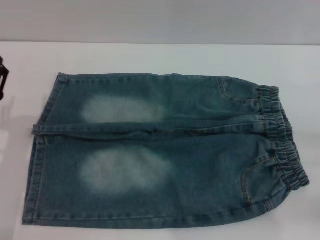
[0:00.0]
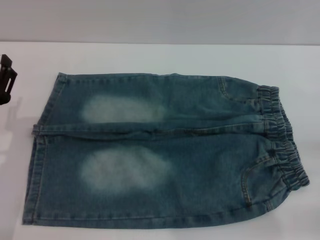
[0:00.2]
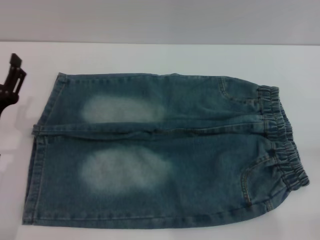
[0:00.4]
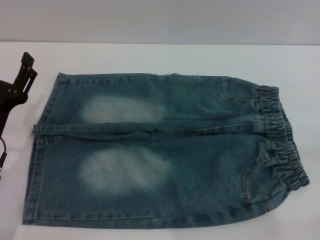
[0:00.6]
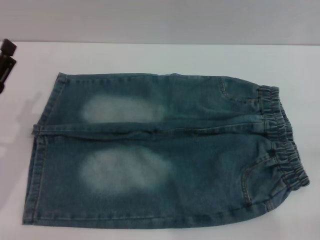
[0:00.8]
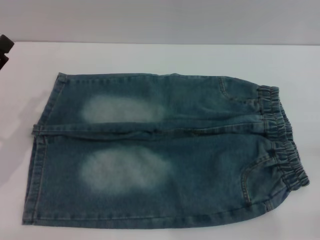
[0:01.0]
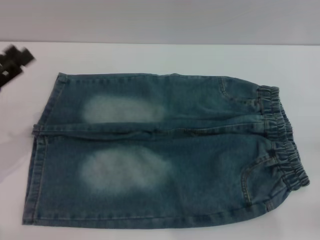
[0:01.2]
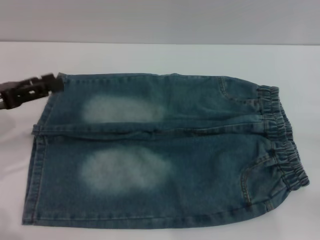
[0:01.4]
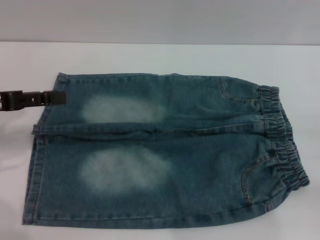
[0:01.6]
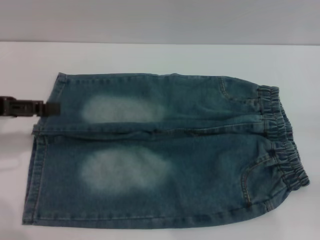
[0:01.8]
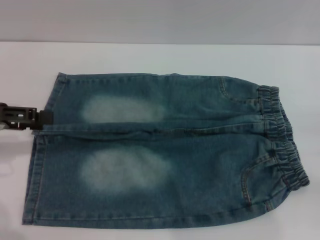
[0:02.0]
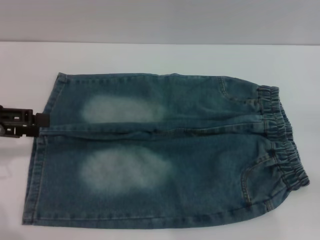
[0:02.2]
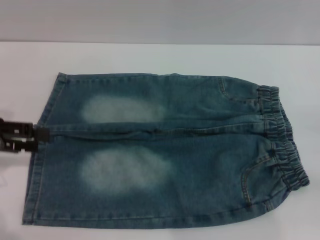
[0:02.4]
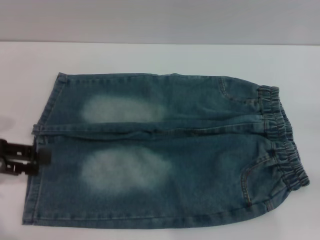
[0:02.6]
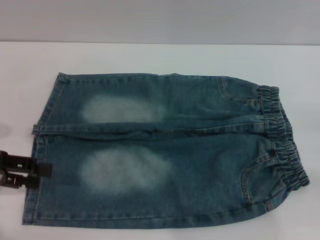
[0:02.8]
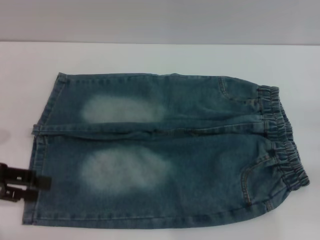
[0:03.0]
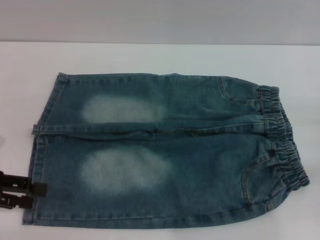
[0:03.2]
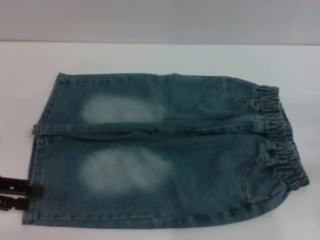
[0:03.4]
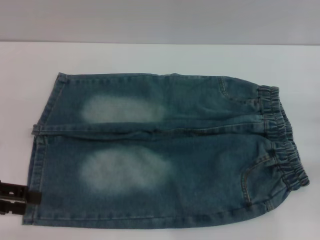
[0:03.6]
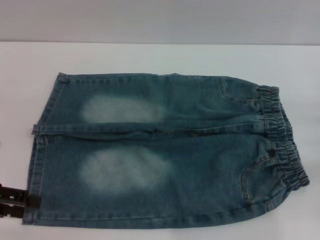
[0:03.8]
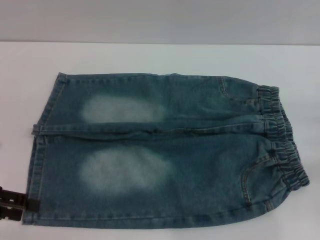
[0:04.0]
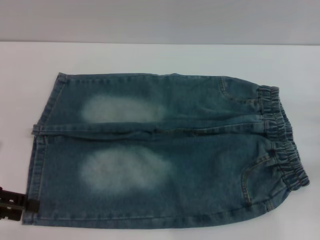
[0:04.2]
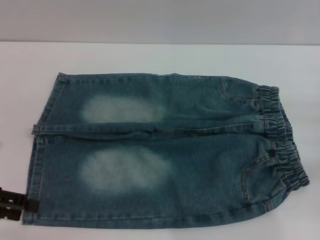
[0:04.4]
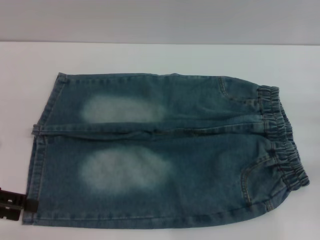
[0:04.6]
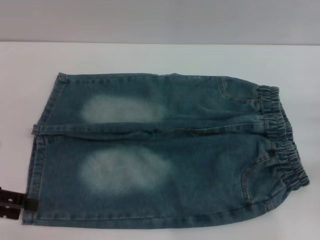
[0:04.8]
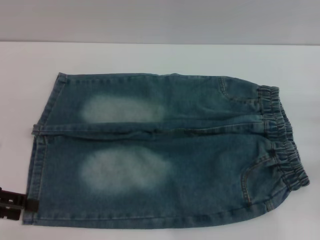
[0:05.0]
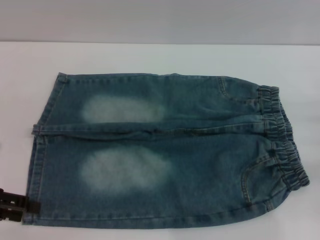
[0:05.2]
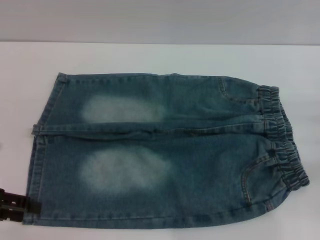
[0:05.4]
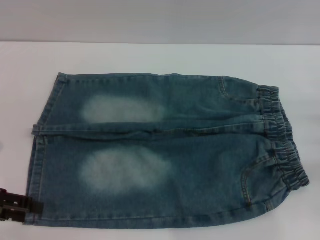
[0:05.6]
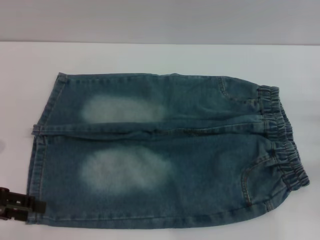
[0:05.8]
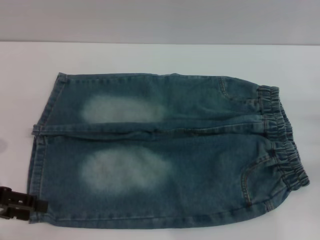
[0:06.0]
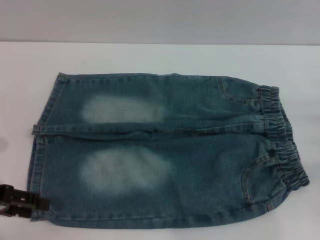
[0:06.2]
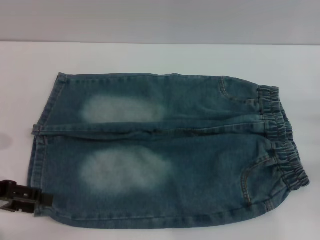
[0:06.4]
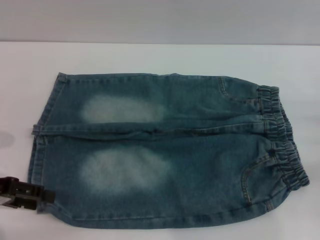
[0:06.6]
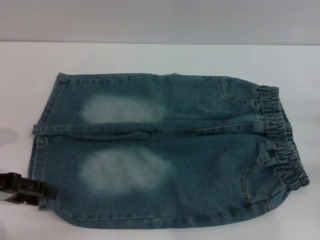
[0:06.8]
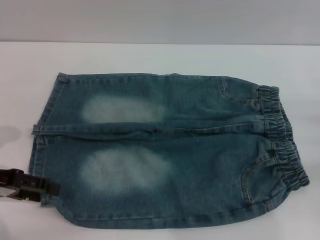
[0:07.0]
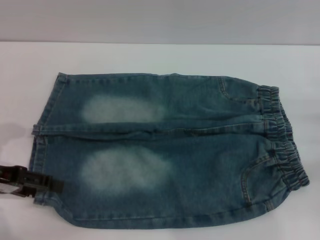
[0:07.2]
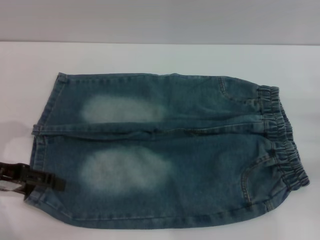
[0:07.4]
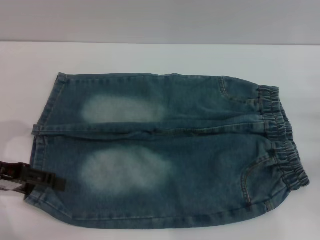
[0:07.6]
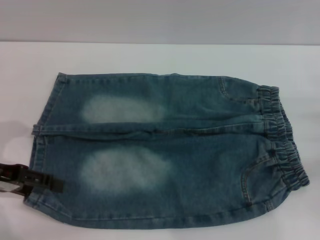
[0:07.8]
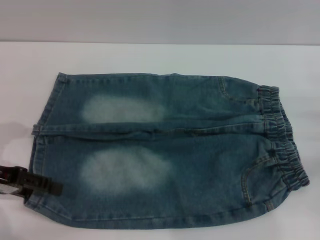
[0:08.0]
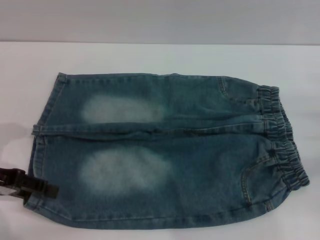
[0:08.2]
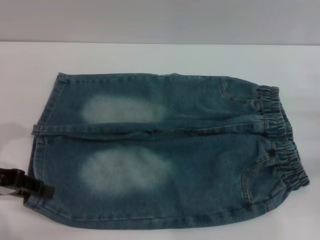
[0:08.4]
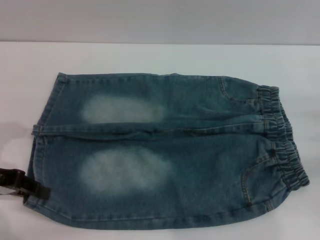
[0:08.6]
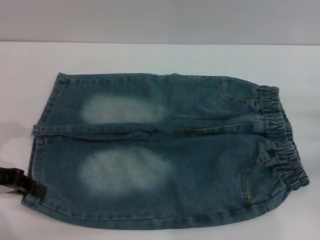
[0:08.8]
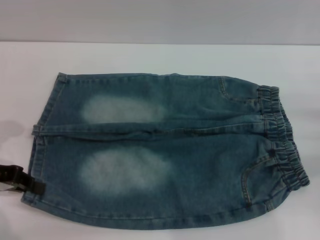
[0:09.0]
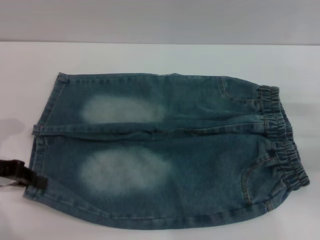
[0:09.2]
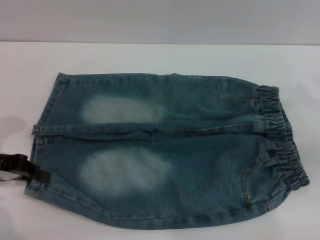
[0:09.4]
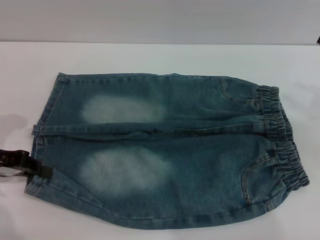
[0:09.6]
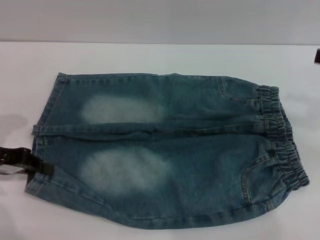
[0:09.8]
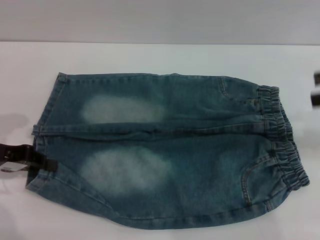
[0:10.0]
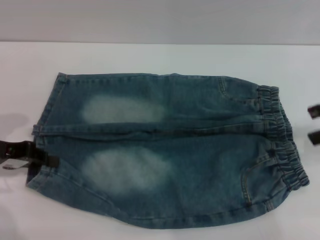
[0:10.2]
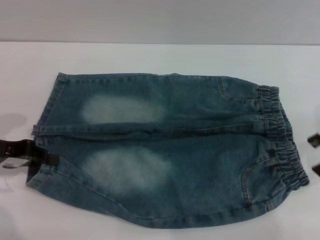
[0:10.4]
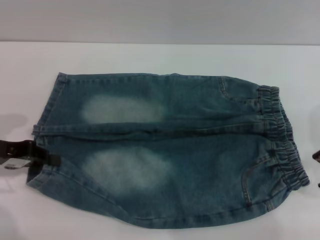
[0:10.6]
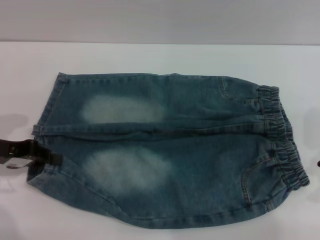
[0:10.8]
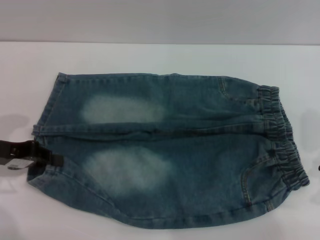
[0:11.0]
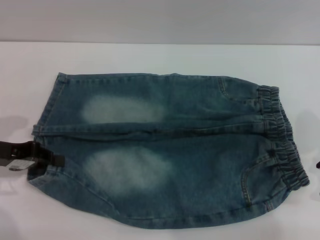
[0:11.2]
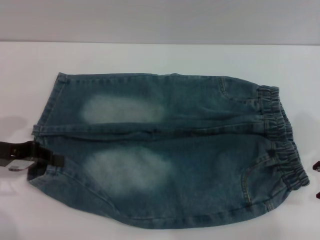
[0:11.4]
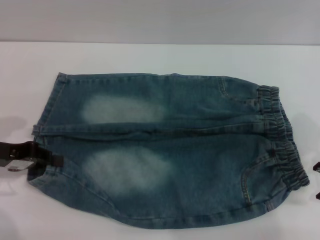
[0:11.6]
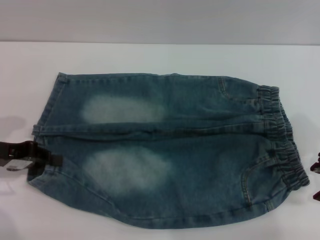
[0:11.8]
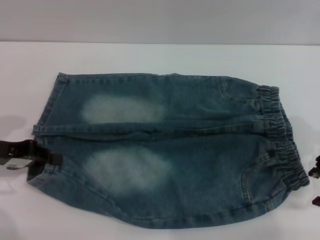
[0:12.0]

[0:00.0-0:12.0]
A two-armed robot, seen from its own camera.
Step, 0:00.0 to 0:09.0: Grasp the lower left leg of the shorts with left gripper.
0:00.0 to 0:01.6: The left gripper heads upward, to the left and forward, covering roughly 15 cm.
0:01.6 to 0:03.0: The left gripper ends up roughly 5 cm from where it was.
0:03.0 to 0:04.4: The grippers make only small movements.
0:04.4 to 0:06.0: The two grippers keep their place.
0:06.0 to 0:07.6: The grippers make only small movements.
0:07.6 to 0:09.0: The left gripper closes its fingers.
0:09.0 to 0:10.4: The right gripper shifts about 15 cm upward.
0:10.4 to 0:12.0: The right gripper is displaced downward by roughly 5 cm.

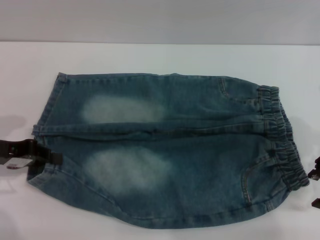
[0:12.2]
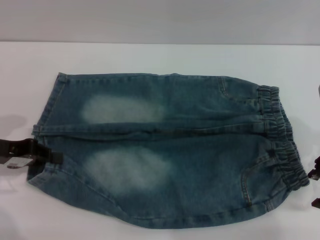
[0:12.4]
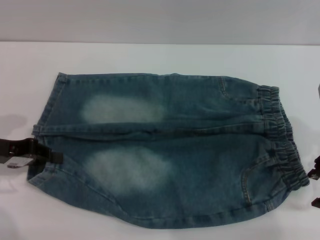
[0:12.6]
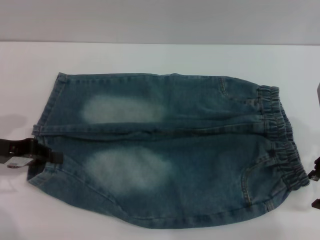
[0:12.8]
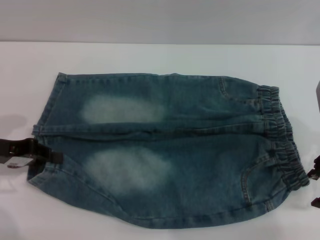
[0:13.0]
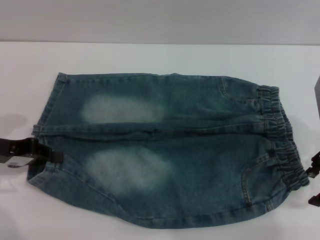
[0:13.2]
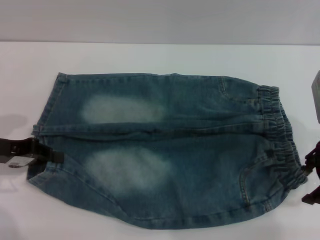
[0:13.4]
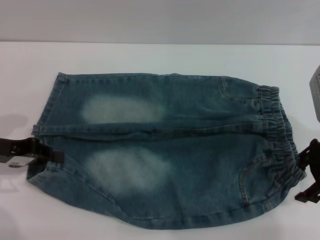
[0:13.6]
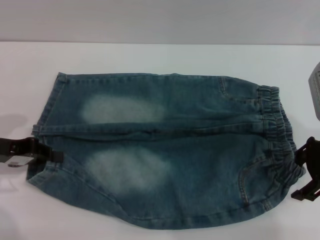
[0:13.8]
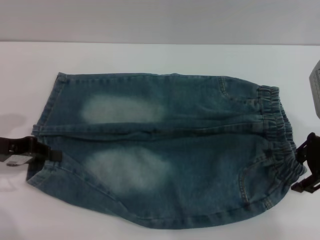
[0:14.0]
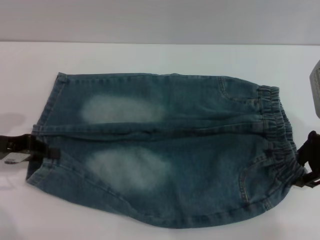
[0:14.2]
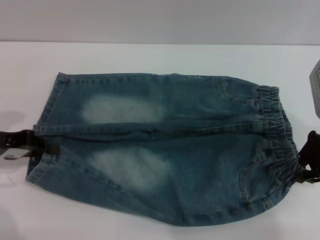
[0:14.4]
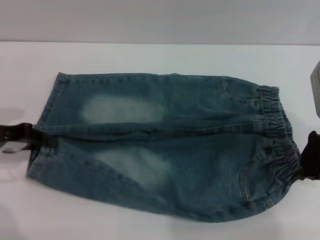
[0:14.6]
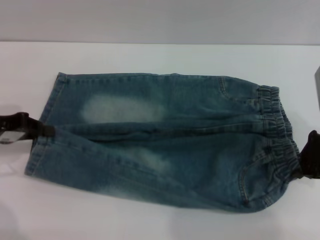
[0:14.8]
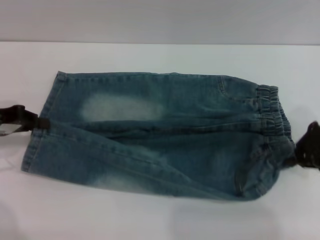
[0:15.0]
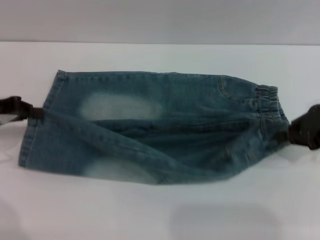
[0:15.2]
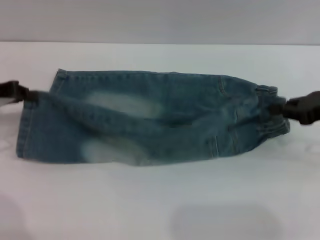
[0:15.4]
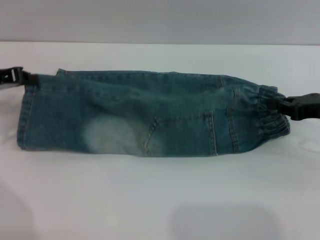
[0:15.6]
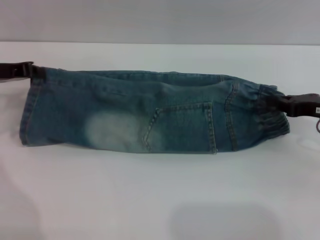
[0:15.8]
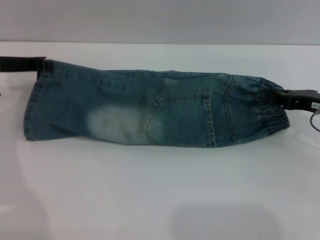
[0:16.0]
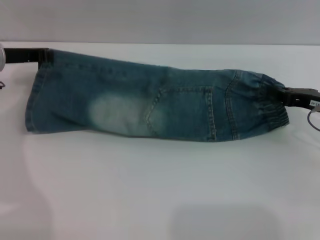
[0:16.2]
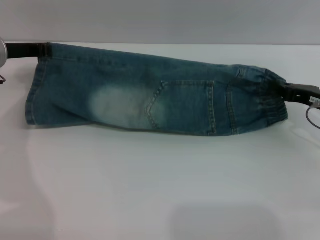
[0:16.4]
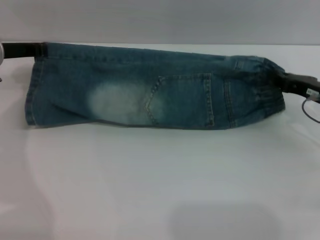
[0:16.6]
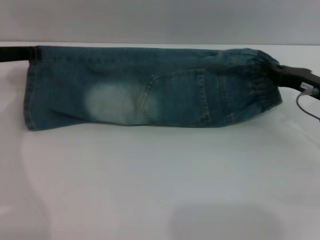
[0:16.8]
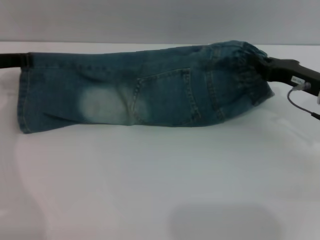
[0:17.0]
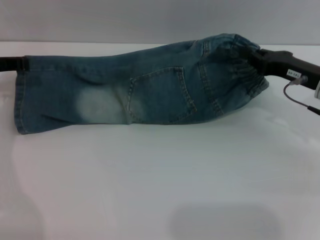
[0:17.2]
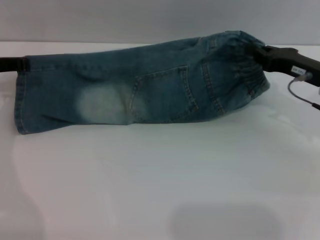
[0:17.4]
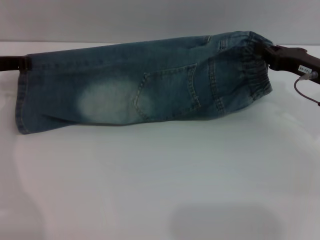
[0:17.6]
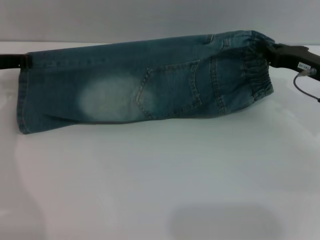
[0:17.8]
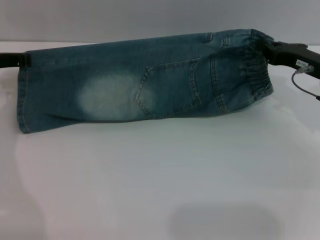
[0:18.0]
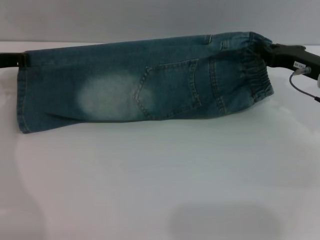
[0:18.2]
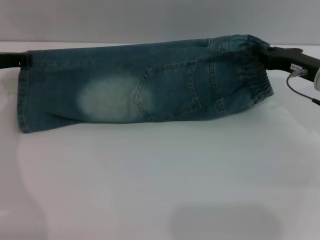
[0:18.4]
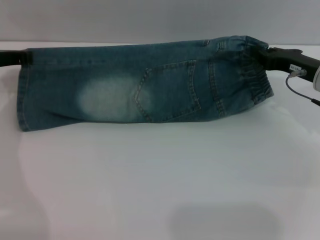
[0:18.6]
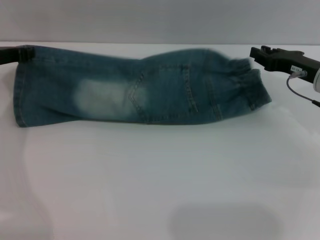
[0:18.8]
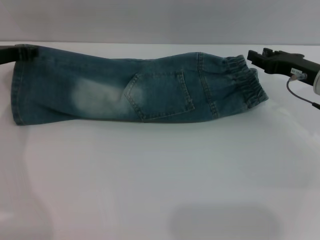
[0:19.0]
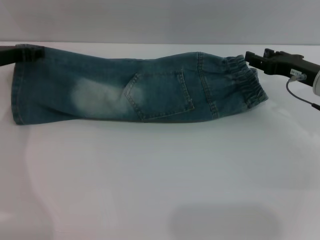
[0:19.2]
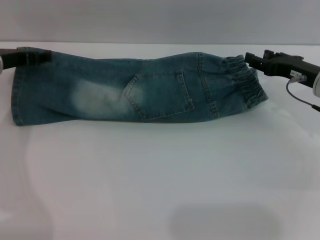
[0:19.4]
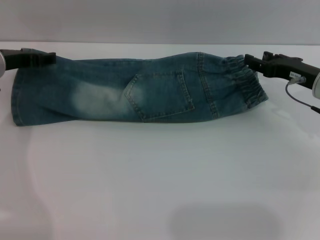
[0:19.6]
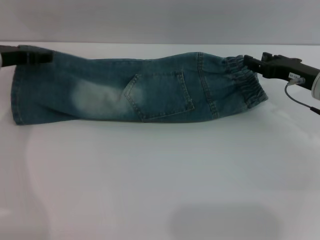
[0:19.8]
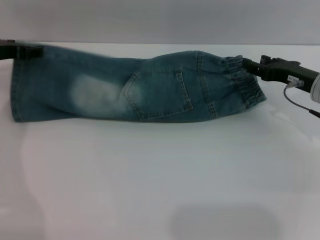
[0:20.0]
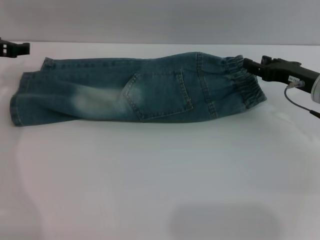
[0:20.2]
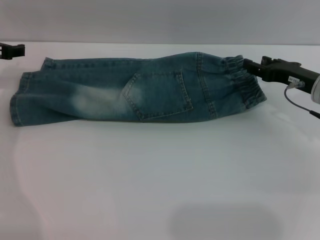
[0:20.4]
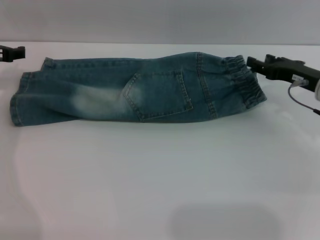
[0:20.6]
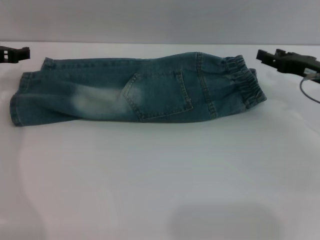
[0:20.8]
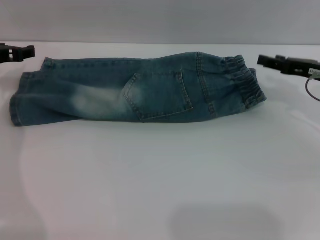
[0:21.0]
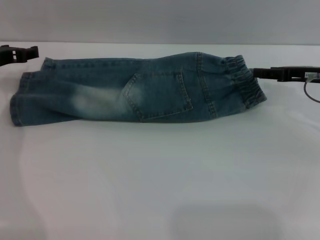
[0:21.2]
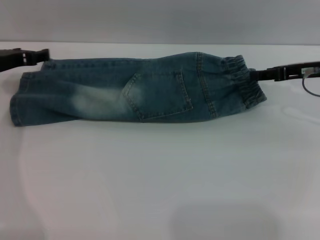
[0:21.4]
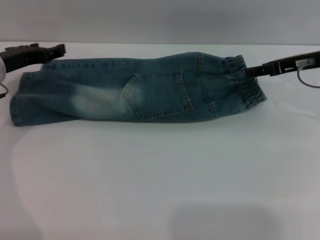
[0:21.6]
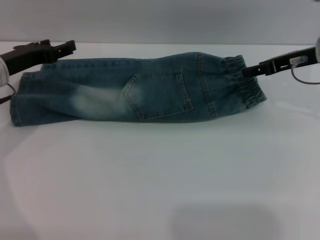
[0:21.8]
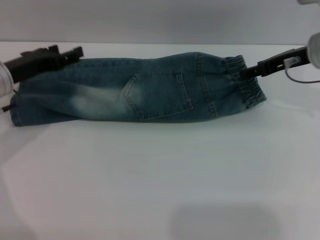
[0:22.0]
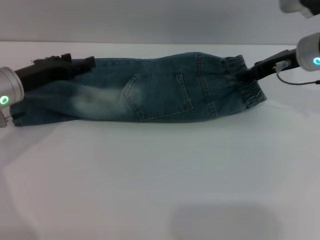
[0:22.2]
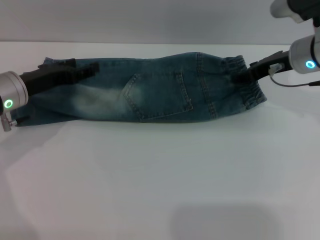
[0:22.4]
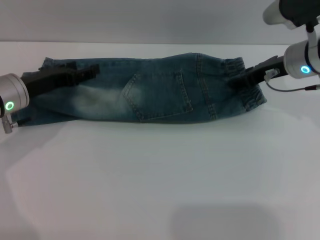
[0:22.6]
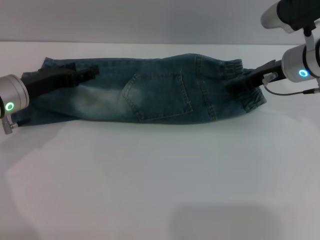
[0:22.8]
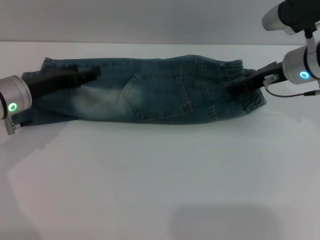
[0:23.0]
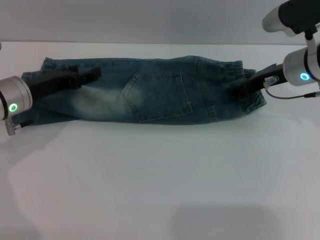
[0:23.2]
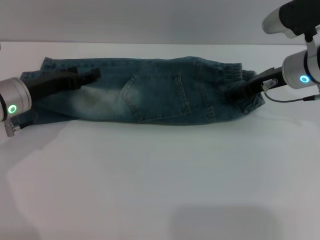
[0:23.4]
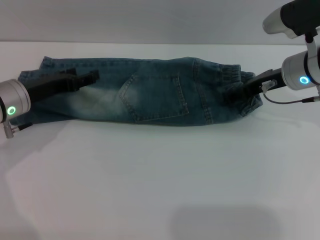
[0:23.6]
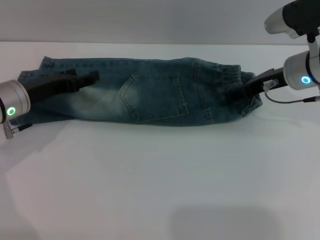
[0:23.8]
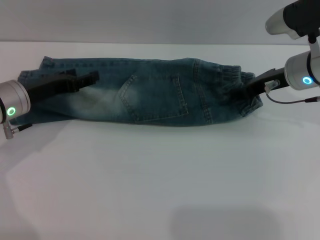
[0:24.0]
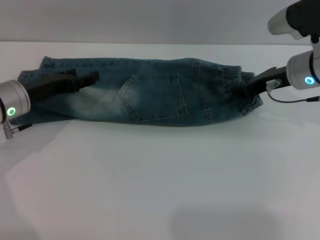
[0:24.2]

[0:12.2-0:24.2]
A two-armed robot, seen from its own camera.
Step, 0:12.2 to 0:14.6: Grasp the right lower side of the waistband of the shorts with right gripper.
Step, 0:14.8 to 0:20.2: Fold the bottom of the shorts upward with left gripper.
0:12.2 to 0:13.8: The grippers move only a little.
0:13.8 to 0:15.2: The right gripper closes up.
0:15.2 to 0:16.6: The left gripper shifts approximately 10 cm forward and to the right. Meanwhile the right gripper moves downward, roughly 10 cm.
0:16.6 to 0:18.2: The right gripper shifts by approximately 5 cm.
0:18.2 to 0:19.8: The left gripper opens. The right gripper opens its fingers.
0:19.8 to 0:21.2: The grippers make only small movements.
0:21.2 to 0:22.6: The right gripper moves to the left, some 10 cm. Meanwhile the left gripper changes place by roughly 5 cm.
0:22.6 to 0:24.2: The right gripper closes up.
